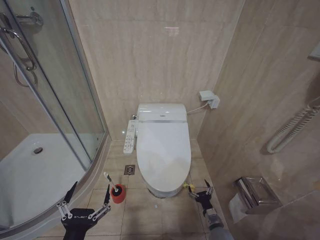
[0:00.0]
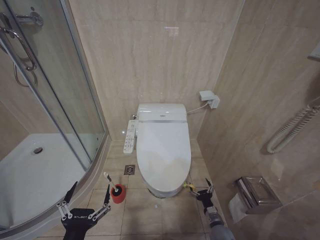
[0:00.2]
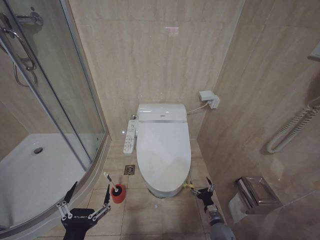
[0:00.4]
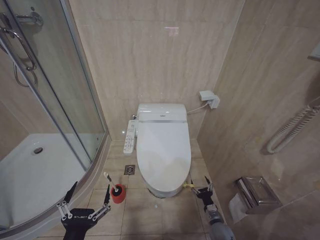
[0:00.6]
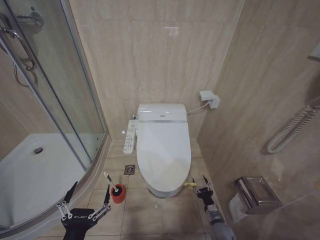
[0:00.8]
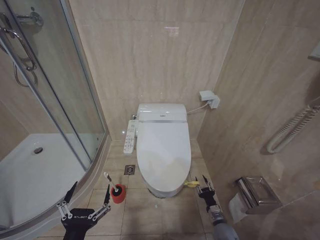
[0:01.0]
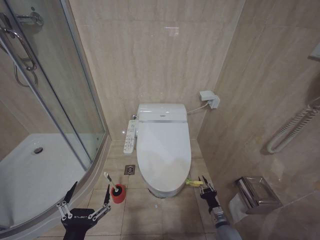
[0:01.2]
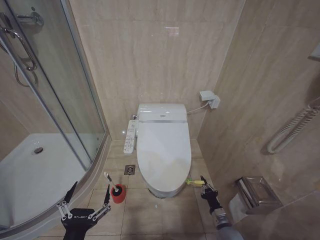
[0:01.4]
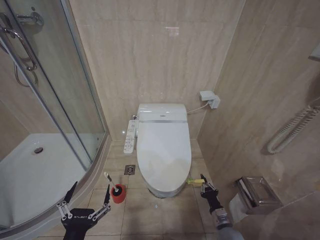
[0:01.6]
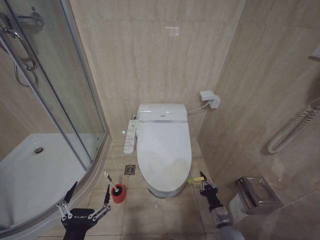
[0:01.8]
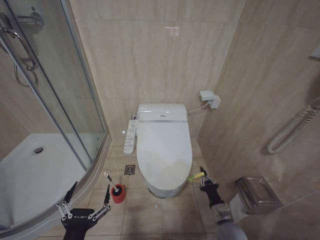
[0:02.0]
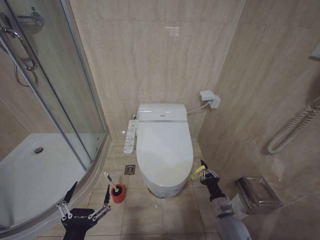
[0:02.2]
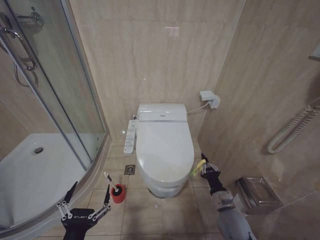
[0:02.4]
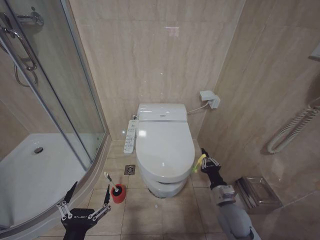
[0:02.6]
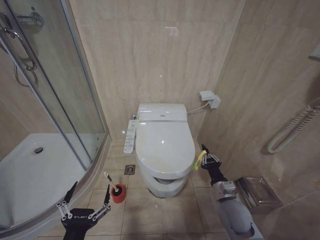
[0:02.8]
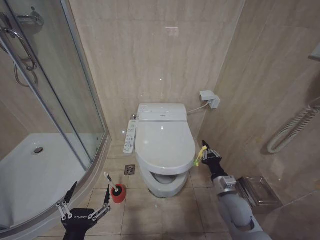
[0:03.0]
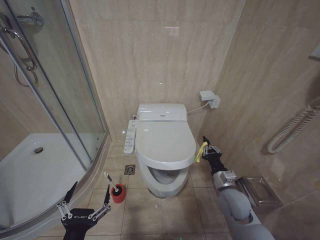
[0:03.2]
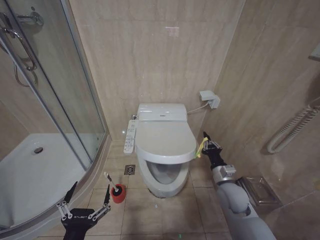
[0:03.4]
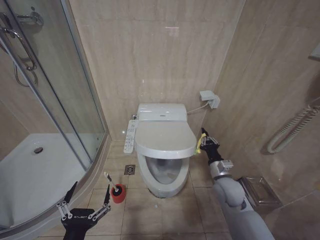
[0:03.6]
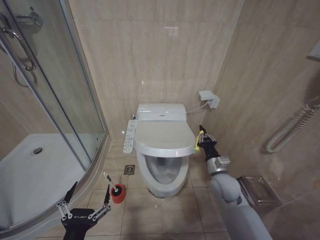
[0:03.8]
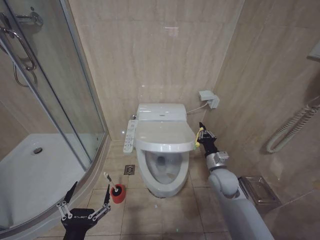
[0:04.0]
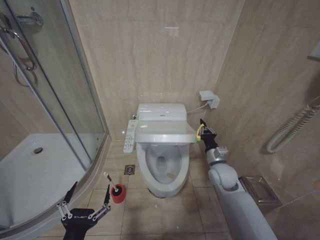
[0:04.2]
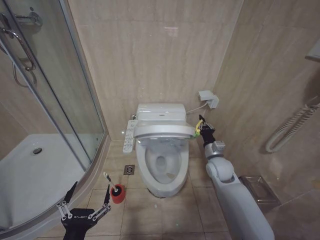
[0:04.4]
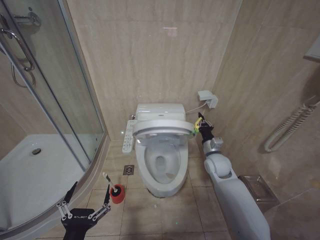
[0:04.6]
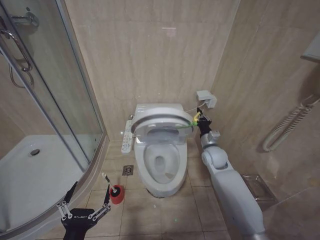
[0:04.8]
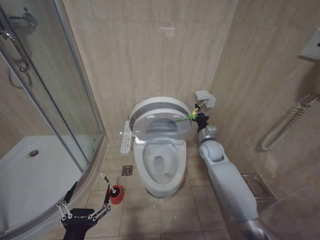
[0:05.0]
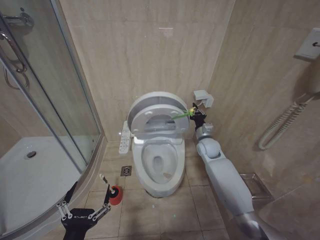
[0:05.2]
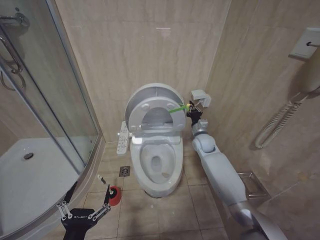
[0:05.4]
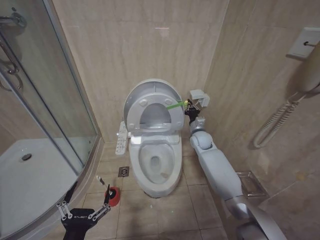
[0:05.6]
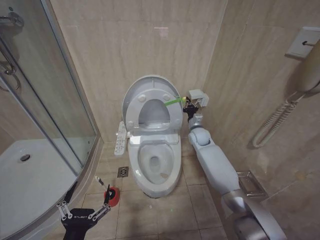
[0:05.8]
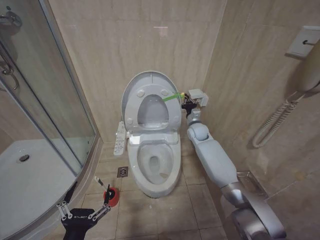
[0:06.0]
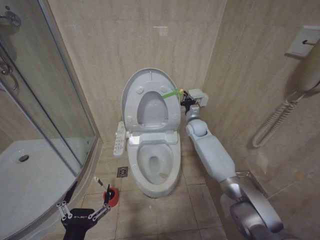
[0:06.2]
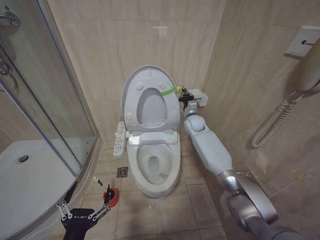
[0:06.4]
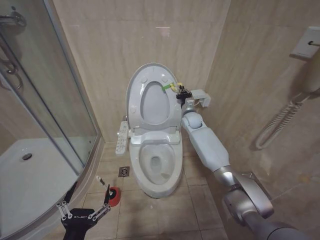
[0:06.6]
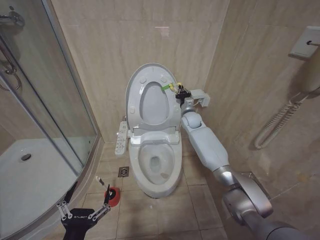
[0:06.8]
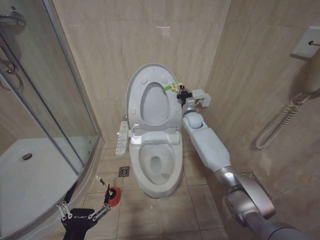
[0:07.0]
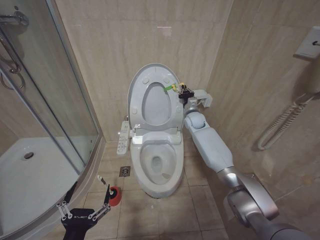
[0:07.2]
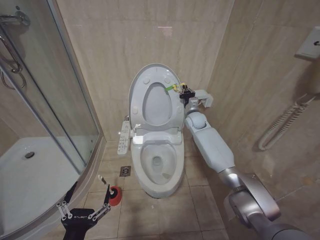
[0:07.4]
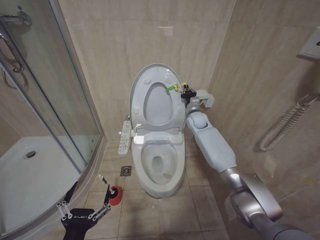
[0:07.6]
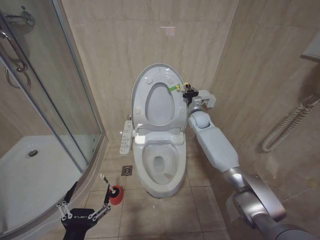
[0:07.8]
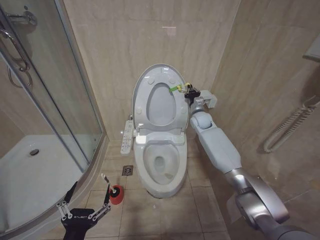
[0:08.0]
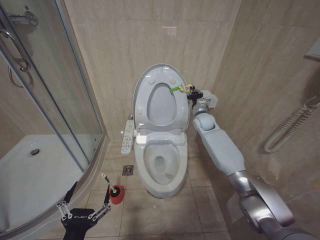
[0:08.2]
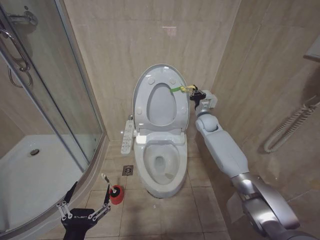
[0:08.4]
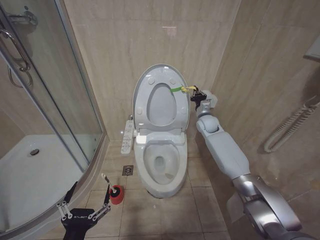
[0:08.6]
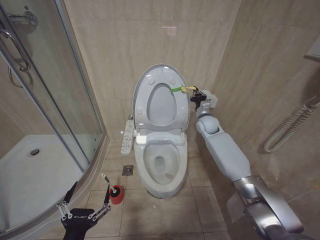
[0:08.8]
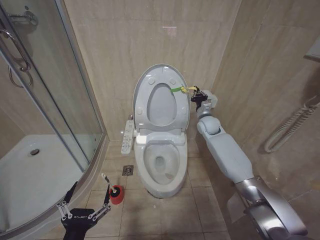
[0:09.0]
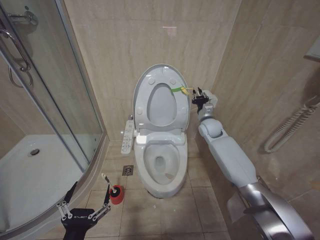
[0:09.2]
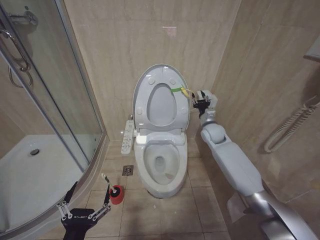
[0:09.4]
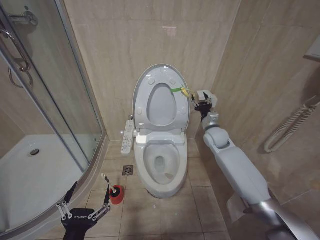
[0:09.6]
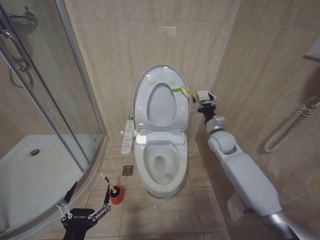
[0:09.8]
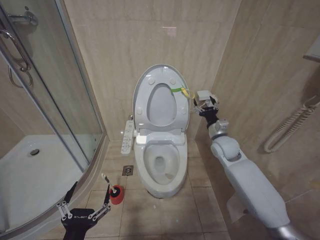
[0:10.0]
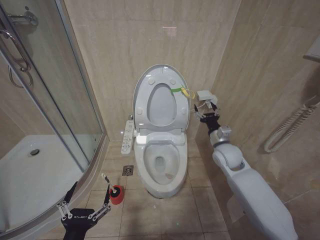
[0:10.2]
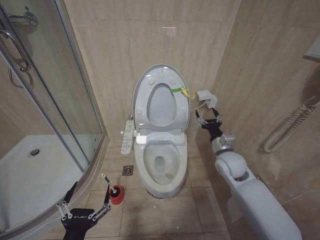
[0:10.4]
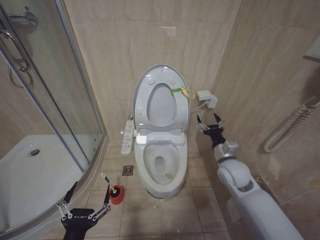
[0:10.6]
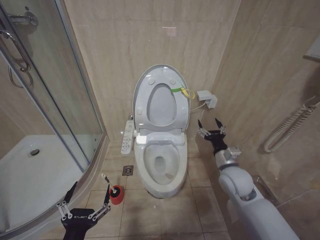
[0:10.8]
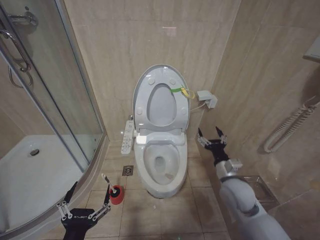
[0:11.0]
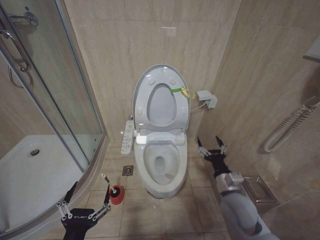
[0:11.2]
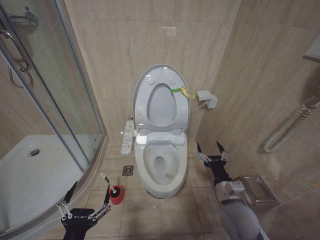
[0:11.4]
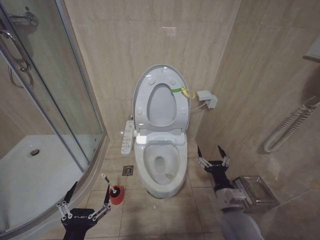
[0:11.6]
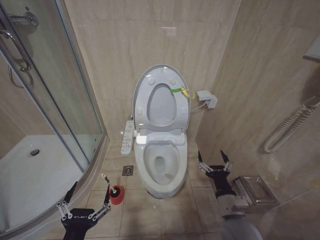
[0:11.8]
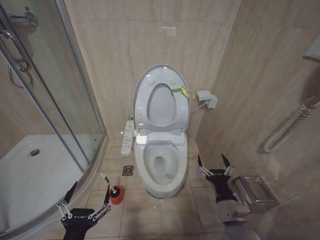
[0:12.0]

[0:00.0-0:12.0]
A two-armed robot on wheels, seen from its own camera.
Task of the whole recording: Open the toilet lid, clean the toilet bowl with a toilet brush, close the toilet lid, and flush.
0:00.0 to 0:01.6: The right gripper shifts by approximately 5 cm, and closes its fingers.
0:01.6 to 0:03.0: The right gripper moves upward, about 15 cm.
0:03.0 to 0:04.4: The right gripper is displaced forward and upward by roughly 15 cm.
0:04.4 to 0:06.0: The right gripper is displaced forward by approximately 15 cm.
0:06.0 to 0:07.6: The right gripper goes about 5 cm upward.
0:07.6 to 0:09.0: The right gripper shifts by roughly 5 cm.
0:09.0 to 0:10.4: The right gripper travels backward by about 20 cm, and opens its fingers.
0:10.4 to 0:12.0: The right gripper heads backward and downward, covering approximately 20 cm.

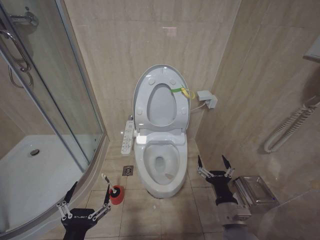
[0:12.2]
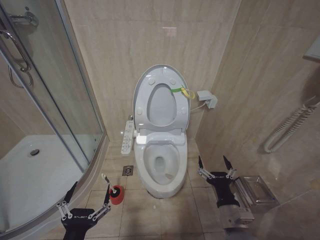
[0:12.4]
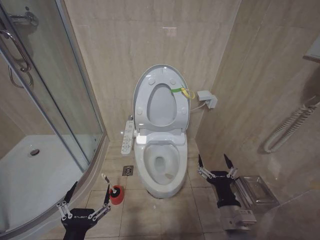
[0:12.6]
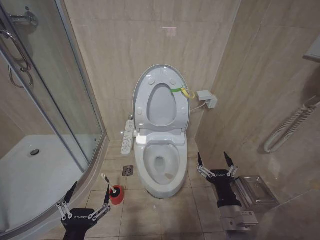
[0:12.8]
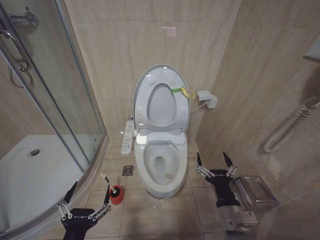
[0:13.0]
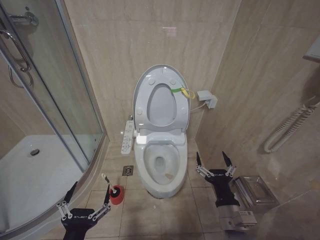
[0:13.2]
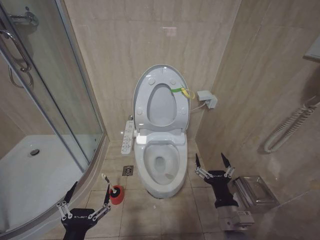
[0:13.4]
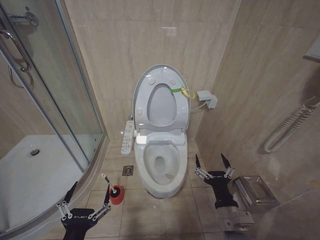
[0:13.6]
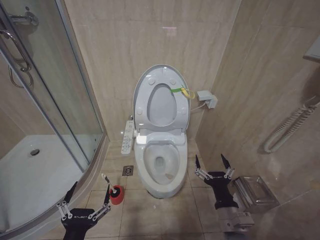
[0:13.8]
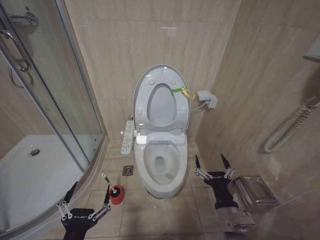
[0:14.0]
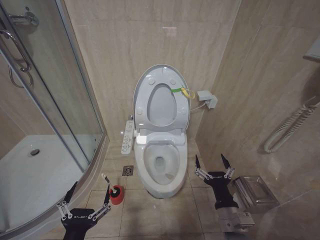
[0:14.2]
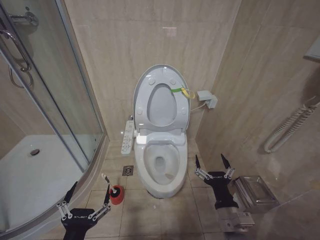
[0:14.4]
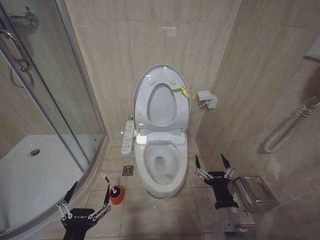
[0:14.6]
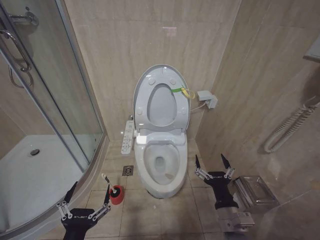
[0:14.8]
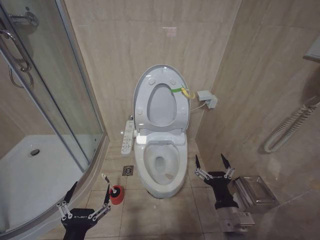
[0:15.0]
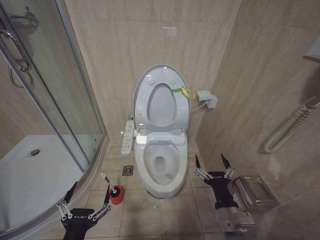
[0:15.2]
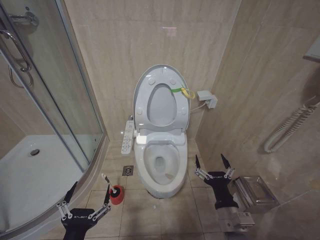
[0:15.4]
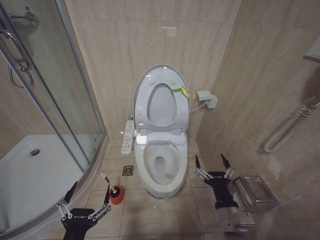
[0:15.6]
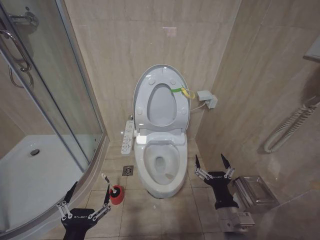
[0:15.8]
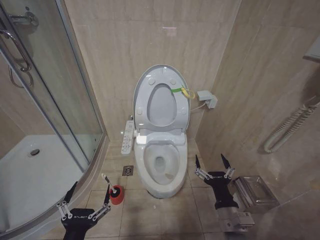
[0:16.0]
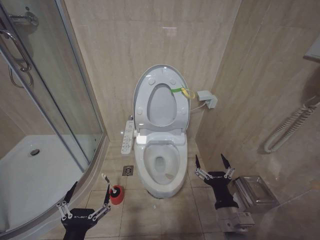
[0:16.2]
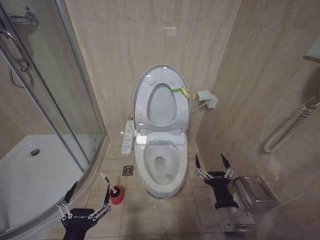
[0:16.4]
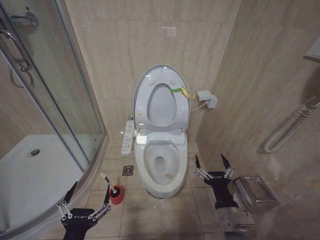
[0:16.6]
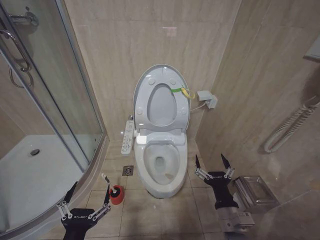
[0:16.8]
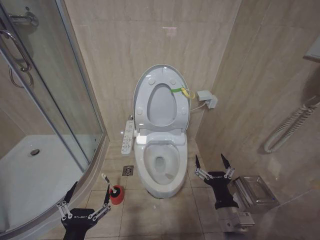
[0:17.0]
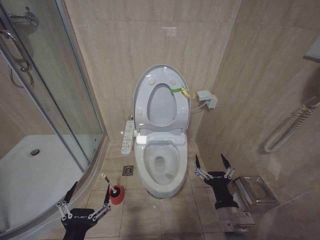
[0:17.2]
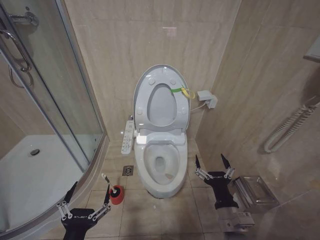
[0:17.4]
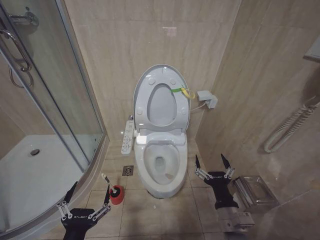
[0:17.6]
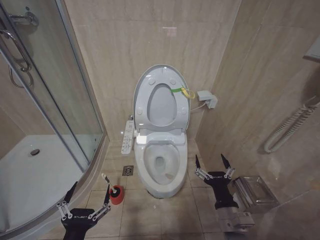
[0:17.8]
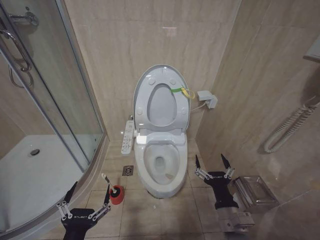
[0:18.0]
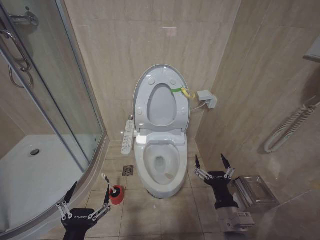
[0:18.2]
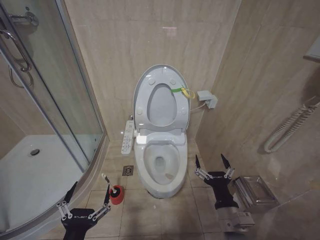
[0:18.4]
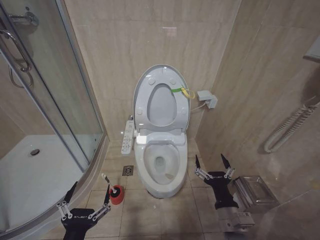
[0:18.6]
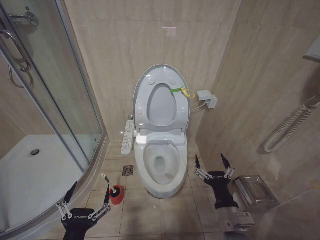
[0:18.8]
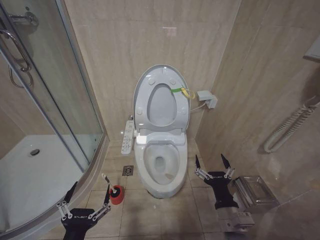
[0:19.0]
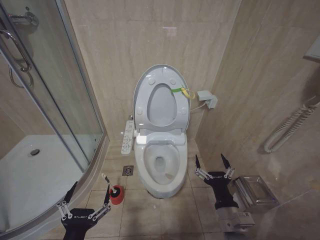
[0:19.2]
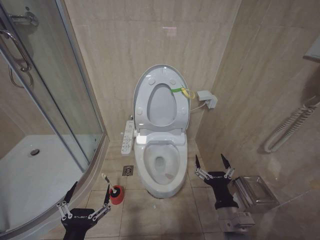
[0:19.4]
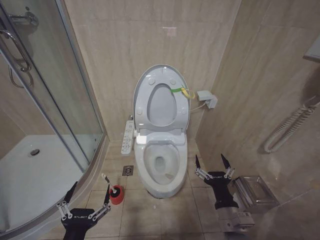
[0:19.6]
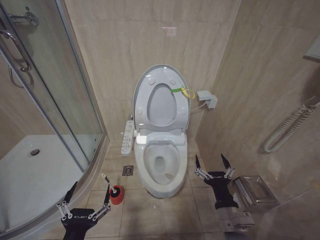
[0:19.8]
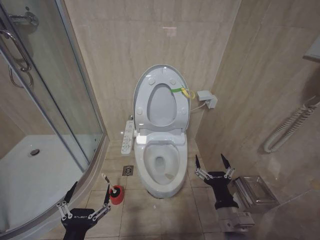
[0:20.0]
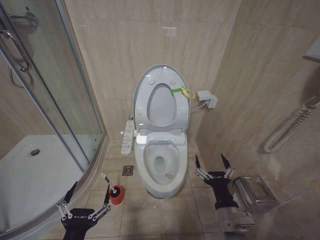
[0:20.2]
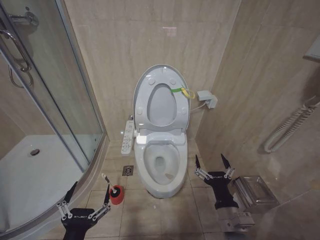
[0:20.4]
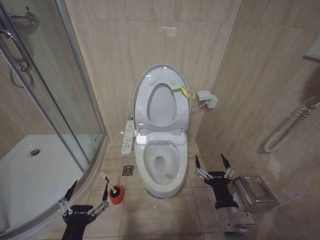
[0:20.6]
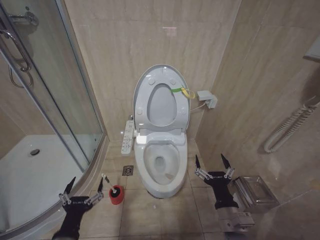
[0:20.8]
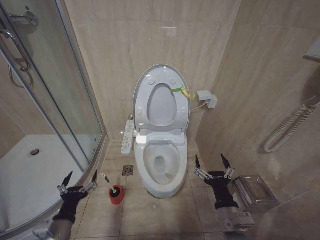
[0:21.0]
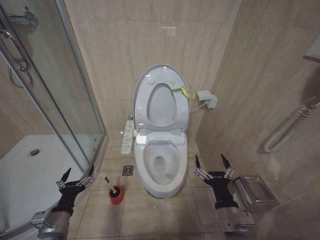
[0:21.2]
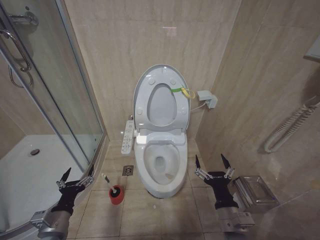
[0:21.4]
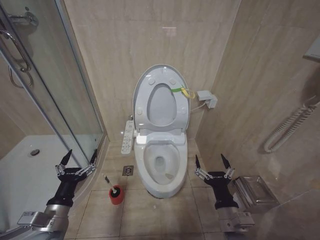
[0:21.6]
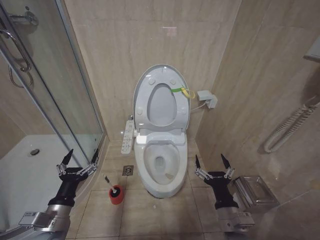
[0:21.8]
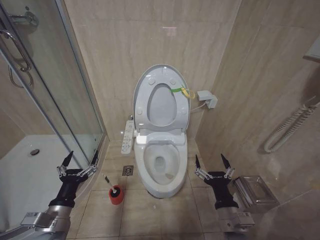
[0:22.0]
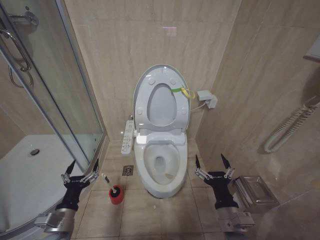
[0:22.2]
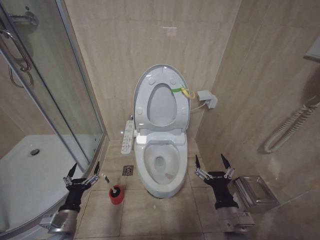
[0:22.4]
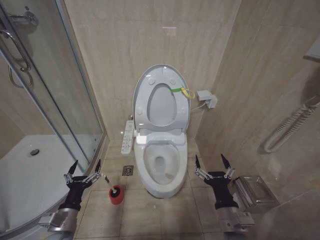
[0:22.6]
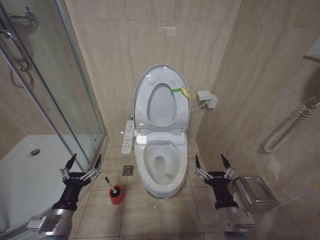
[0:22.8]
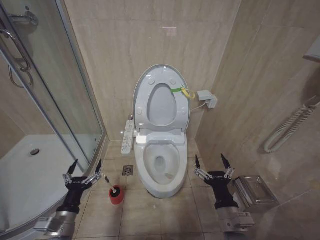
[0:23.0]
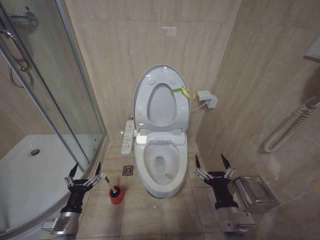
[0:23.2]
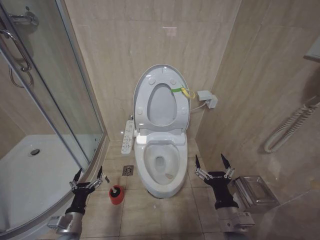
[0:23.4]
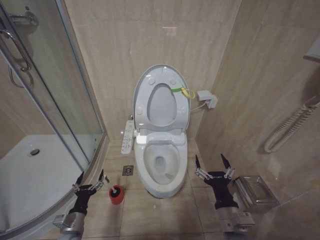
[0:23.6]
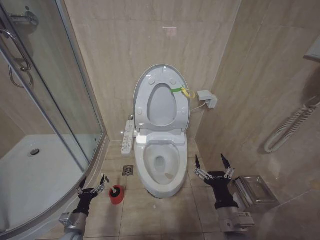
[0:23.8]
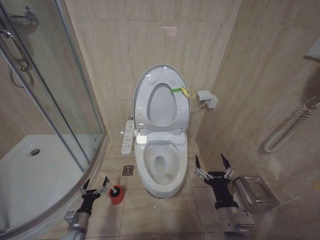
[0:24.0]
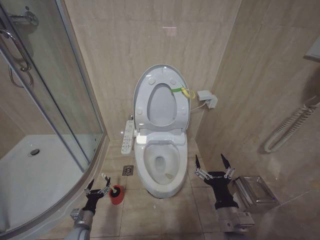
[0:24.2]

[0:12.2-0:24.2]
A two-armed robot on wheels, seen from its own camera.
Task of the whole recording: Open the toilet lid, clean the toilet bowl with a toilet brush, close the toilet lid, and flush.
0:13.8 to 0:19.8: The two grippers keep their place.
0:19.8 to 0:21.2: The left gripper goes roughly 15 cm forward, to the left and downward.
0:21.2 to 0:22.6: The left gripper reaches about 5 cm upward, then returns.
0:22.6 to 0:24.2: The left gripper travels downward by some 20 cm.
